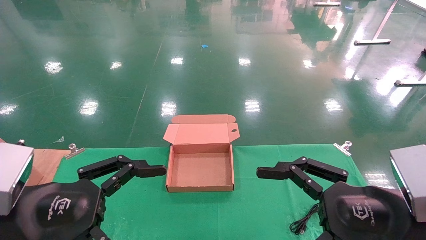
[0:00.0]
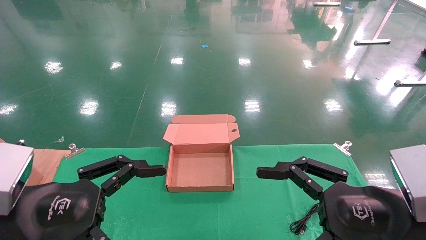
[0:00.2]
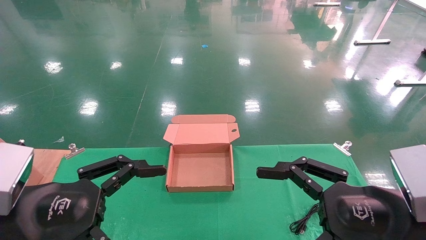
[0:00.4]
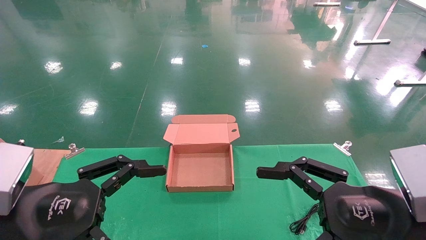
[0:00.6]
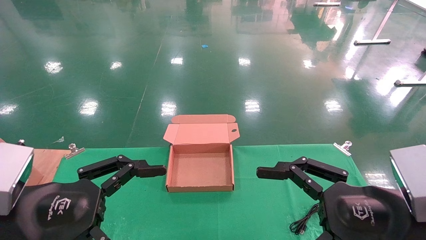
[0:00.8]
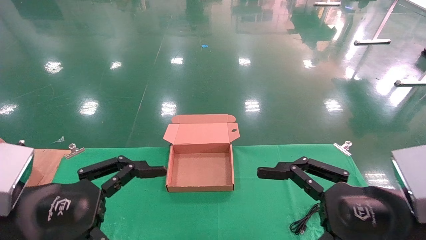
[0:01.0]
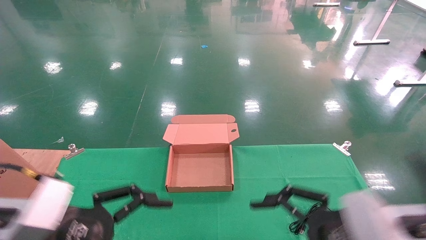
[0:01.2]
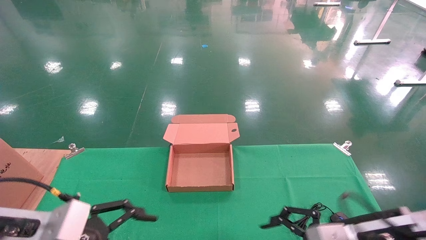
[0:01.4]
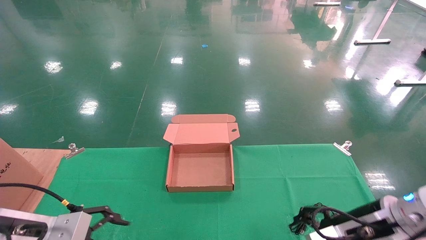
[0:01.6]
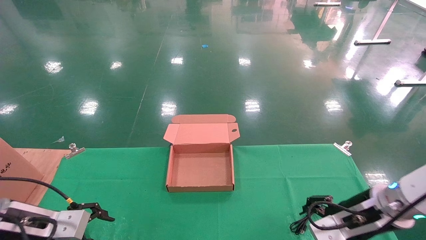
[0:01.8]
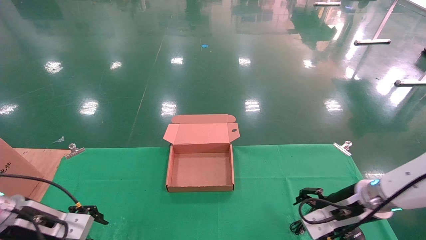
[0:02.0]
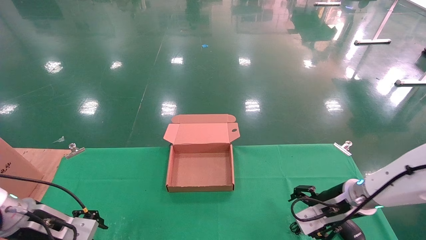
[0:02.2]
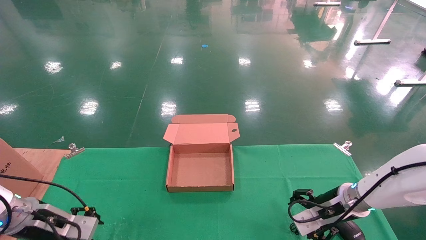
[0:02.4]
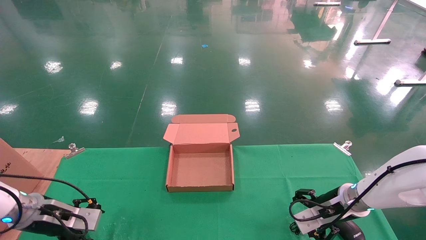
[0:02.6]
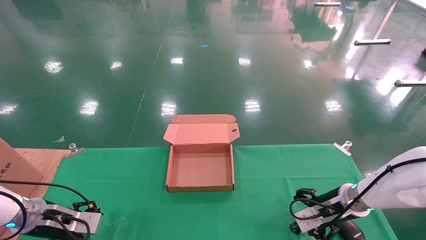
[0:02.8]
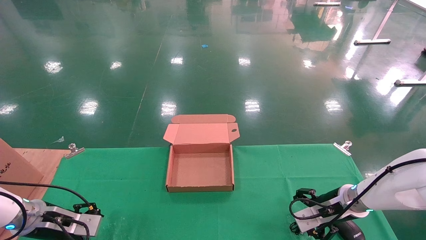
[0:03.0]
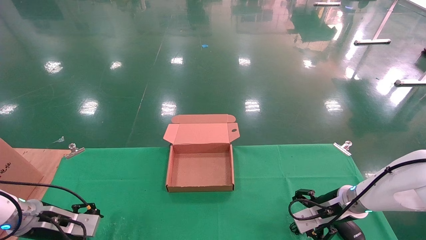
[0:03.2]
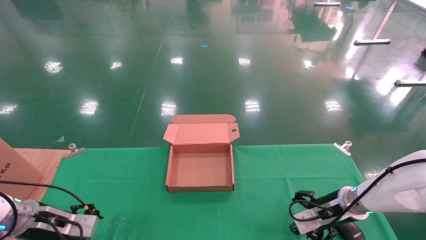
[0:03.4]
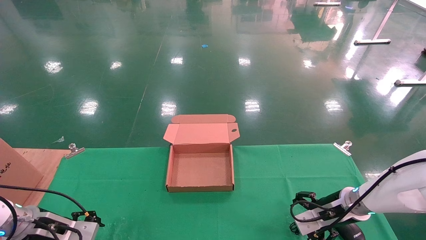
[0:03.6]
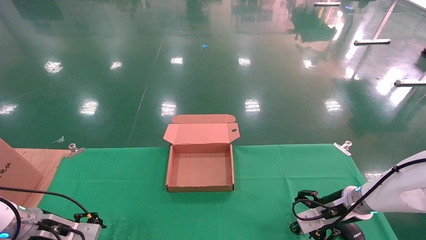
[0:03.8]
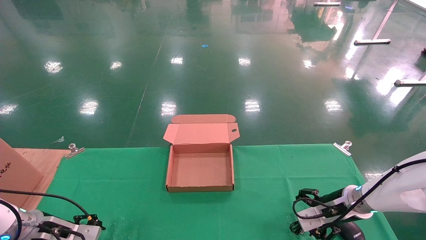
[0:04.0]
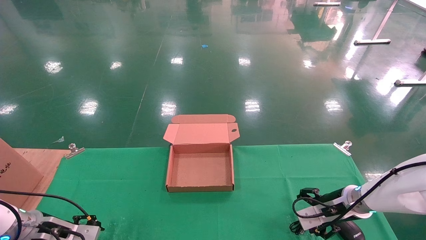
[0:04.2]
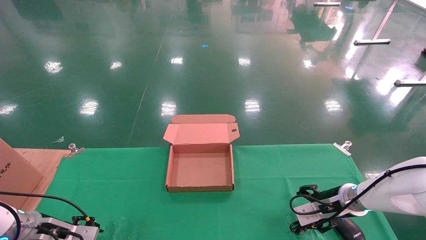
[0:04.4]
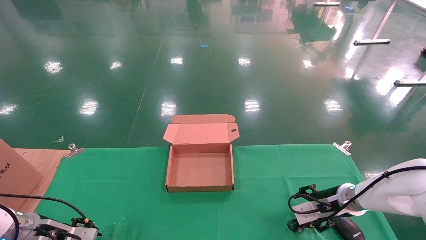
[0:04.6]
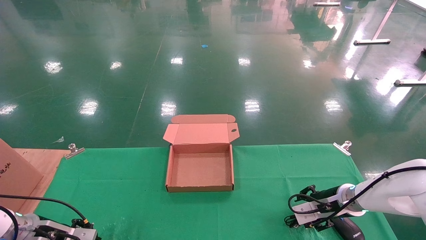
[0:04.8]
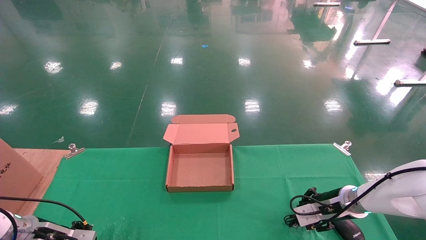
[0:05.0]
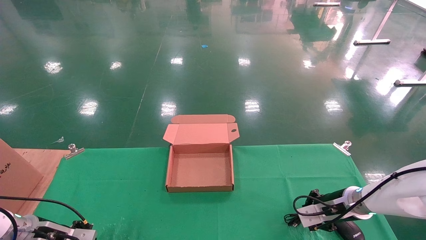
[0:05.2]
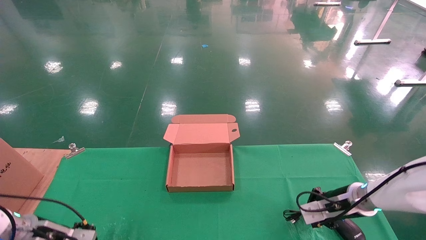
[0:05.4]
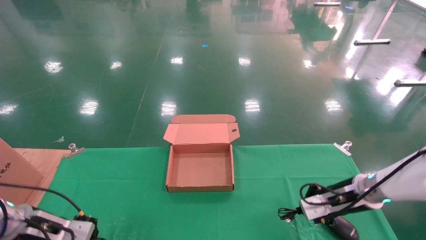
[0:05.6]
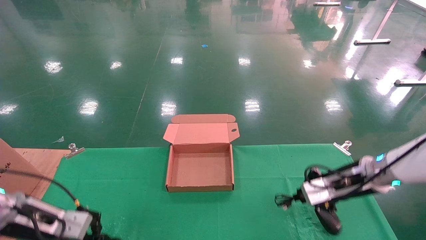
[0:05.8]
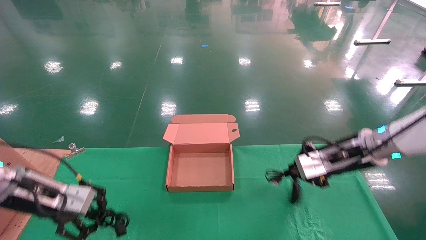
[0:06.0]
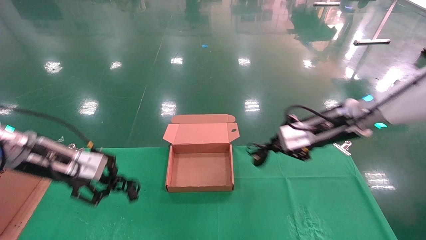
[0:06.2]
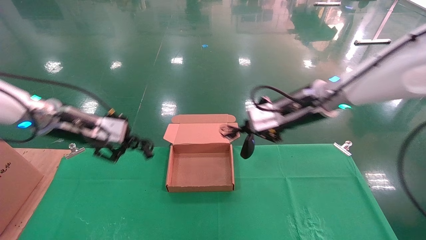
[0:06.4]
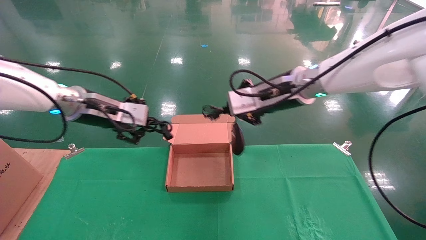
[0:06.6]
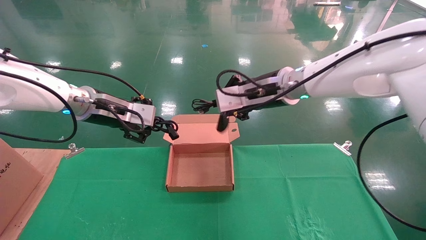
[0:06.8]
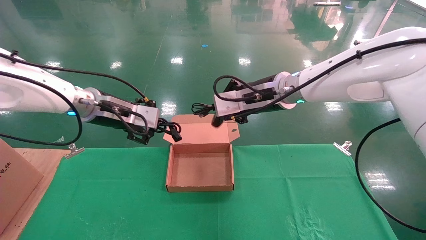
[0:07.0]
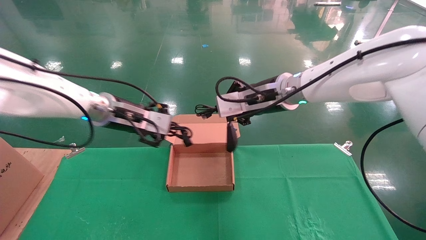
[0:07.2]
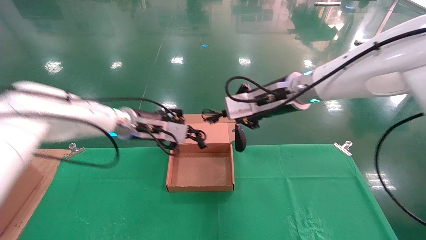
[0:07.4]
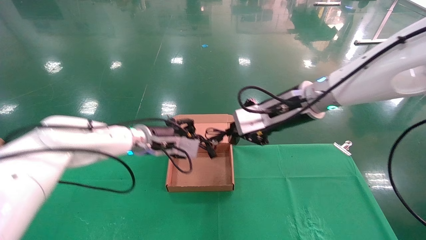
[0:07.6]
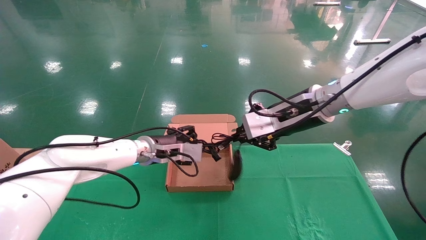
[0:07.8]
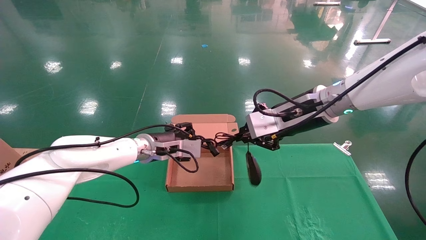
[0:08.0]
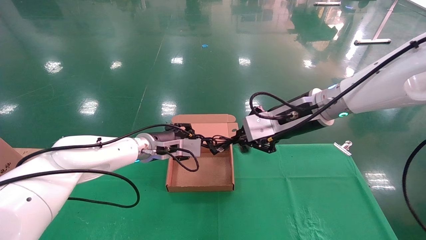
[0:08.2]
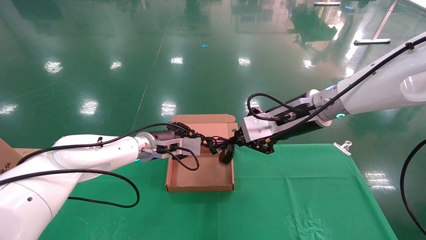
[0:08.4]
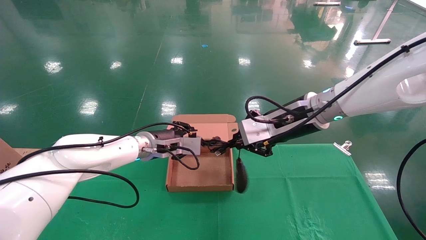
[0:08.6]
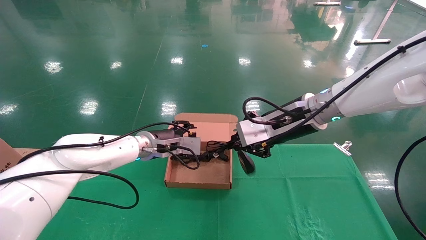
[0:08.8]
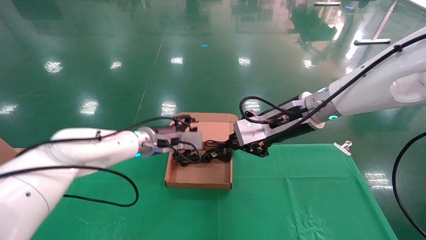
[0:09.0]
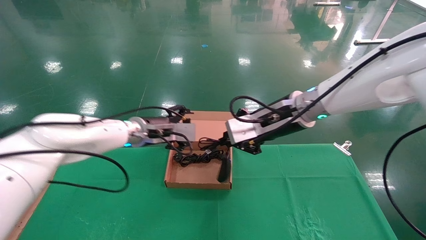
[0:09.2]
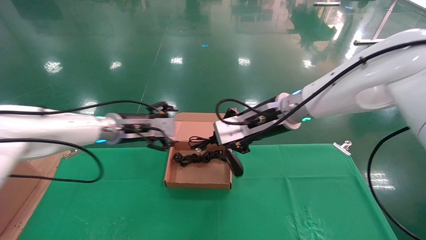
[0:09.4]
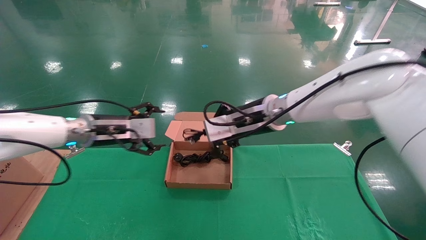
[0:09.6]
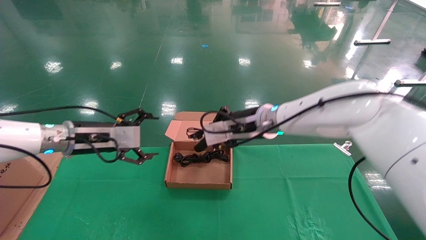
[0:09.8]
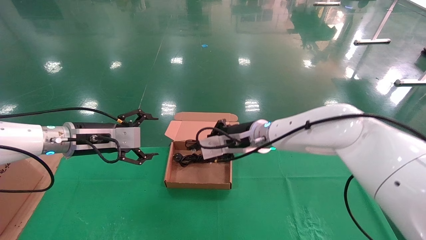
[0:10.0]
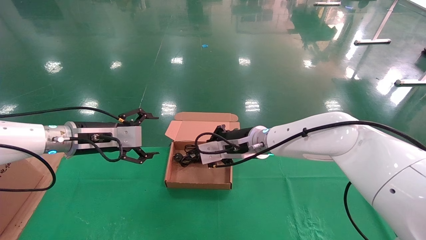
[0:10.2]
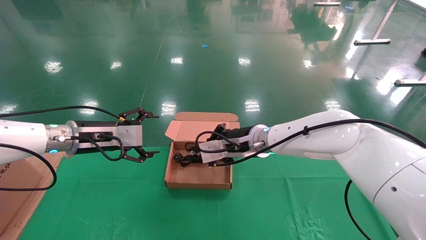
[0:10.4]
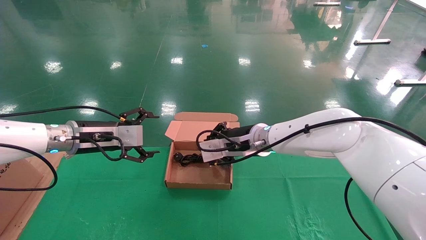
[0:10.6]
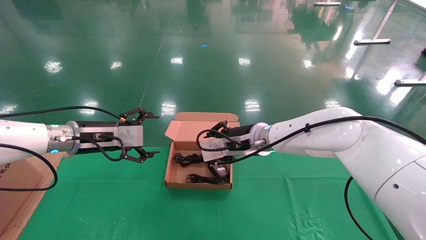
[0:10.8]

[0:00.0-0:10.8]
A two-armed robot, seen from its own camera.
Step, 0:01.6 to 0:06.0: Grab and lift both the mouse and power cord from the accessory packaging area at the same time.
0:00.0 to 0:01.6: The left gripper is displaced forward, downward and to the left by about 15 cm. Meanwhile the right gripper is displaced forward and downward by about 15 cm.
0:01.6 to 0:03.0: The left gripper goes about 15 cm forward, downward and to the left, while the right gripper shifts approximately 15 cm forward and downward.
0:03.0 to 0:04.6: The grippers stay close to where they were, moving slightly.
0:04.6 to 0:06.2: Both grippers move upward, approximately 20 cm. The left gripper closes, while the right gripper closes up.
0:06.2 to 0:07.8: The right gripper moves to the left, some 5 cm; the left gripper goes approximately 20 cm to the right and forward.
0:07.8 to 0:09.2: The left gripper opens.
0:09.2 to 0:10.8: The right gripper shifts about 10 cm downward, to the left and forward, while the left gripper is displaced to the left and backward by some 10 cm.

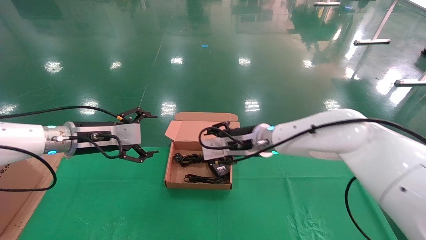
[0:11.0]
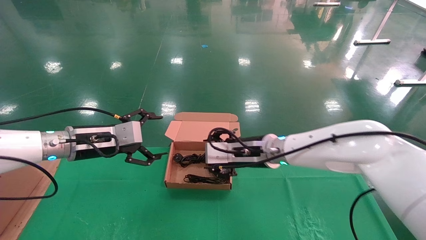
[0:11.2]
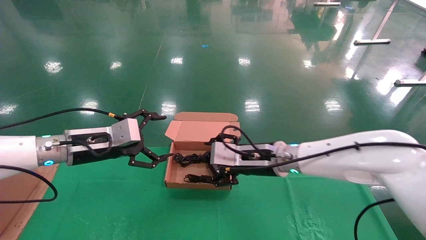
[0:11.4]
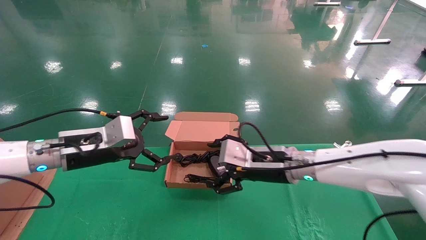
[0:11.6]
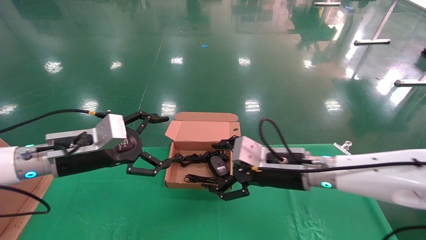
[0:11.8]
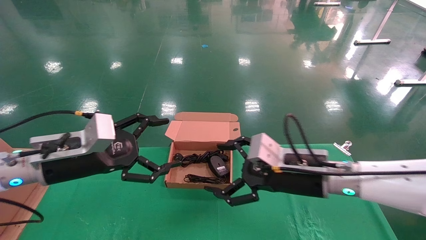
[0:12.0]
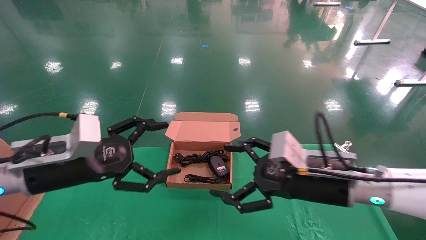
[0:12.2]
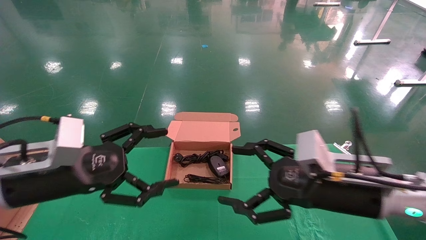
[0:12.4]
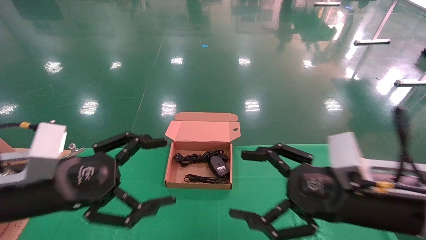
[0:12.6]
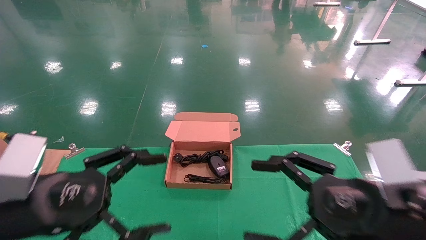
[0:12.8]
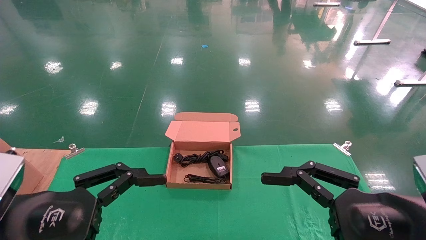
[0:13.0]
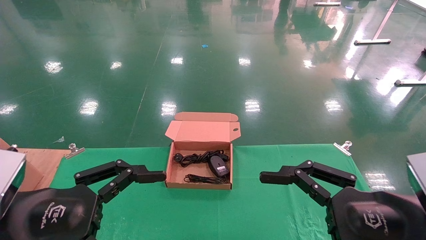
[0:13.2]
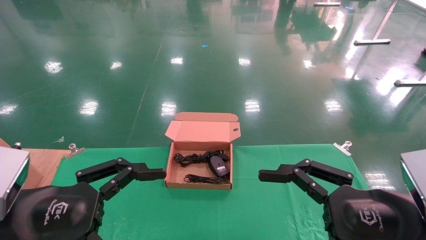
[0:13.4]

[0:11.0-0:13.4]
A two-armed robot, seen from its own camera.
0:11.0 to 0:12.2: The left gripper travels backward by about 10 cm, while the right gripper heads backward and to the right, covering roughly 20 cm, and opens.
0:12.2 to 0:13.4: The right gripper moves backward and to the right, roughly 15 cm. The left gripper travels backward by about 10 cm.

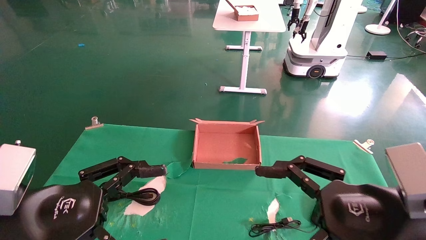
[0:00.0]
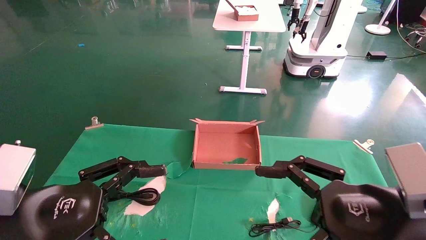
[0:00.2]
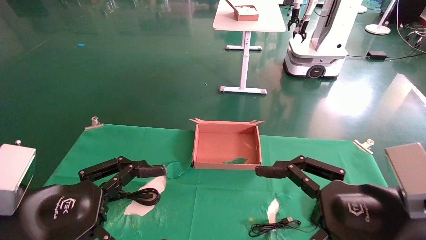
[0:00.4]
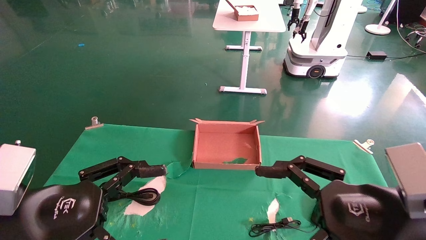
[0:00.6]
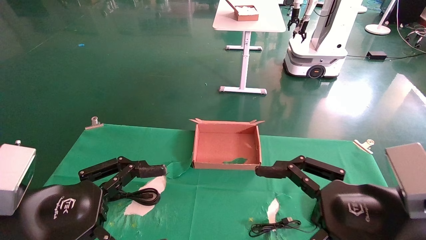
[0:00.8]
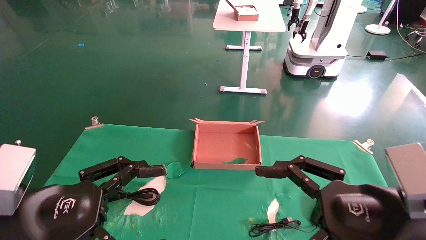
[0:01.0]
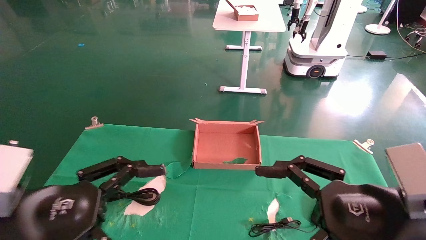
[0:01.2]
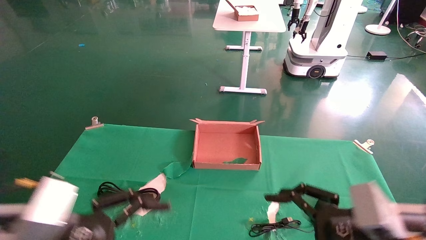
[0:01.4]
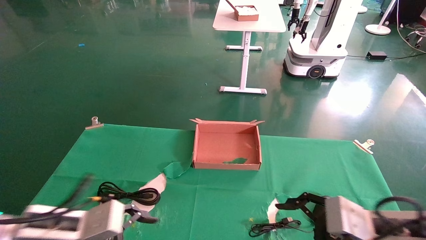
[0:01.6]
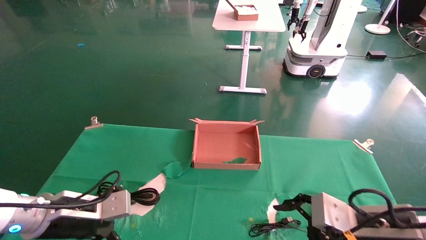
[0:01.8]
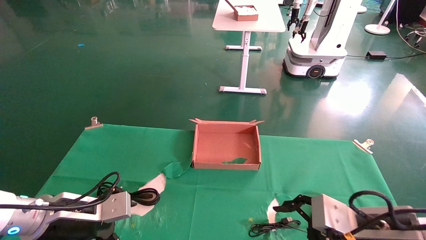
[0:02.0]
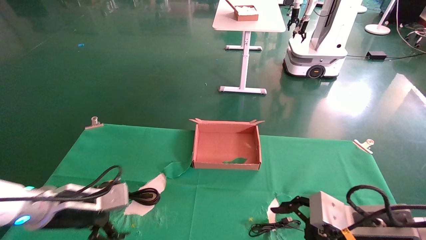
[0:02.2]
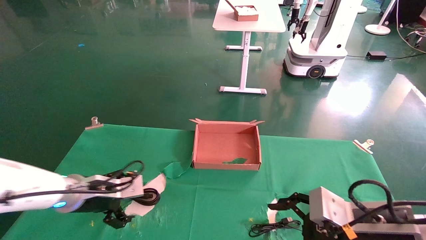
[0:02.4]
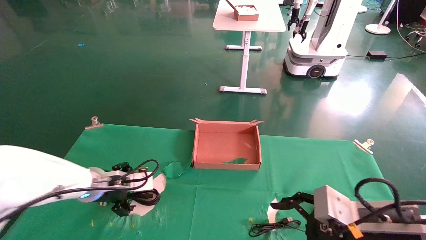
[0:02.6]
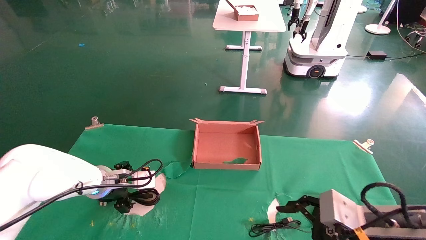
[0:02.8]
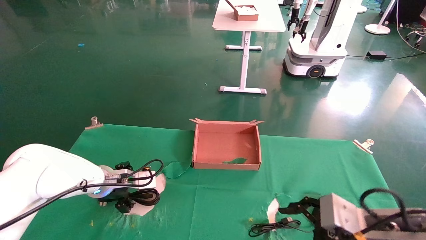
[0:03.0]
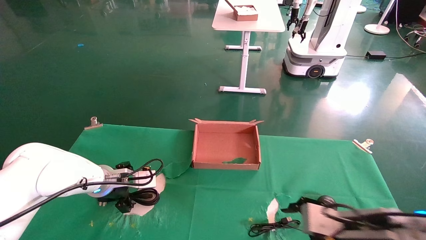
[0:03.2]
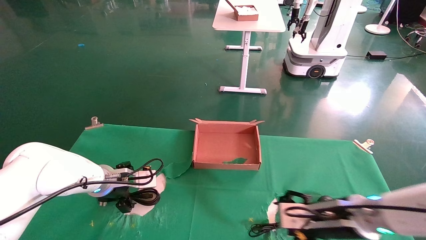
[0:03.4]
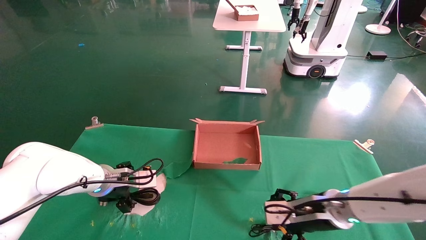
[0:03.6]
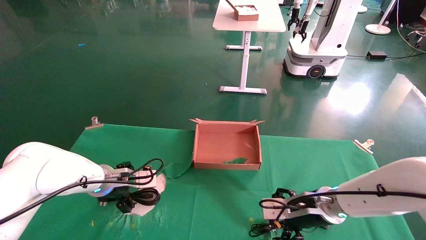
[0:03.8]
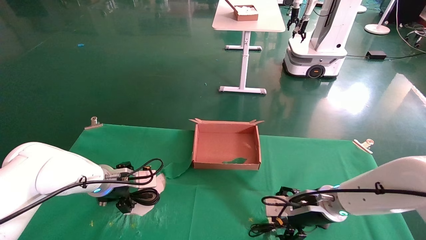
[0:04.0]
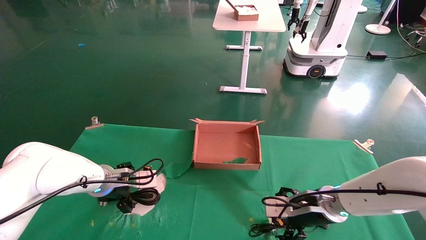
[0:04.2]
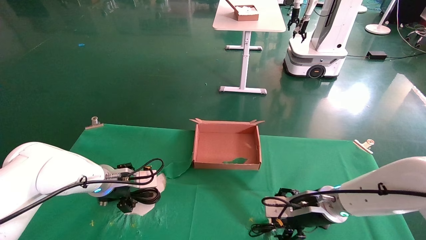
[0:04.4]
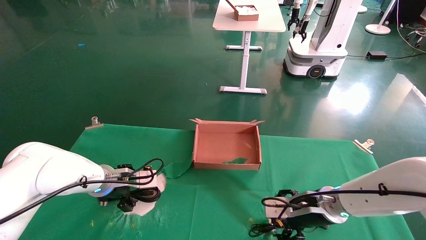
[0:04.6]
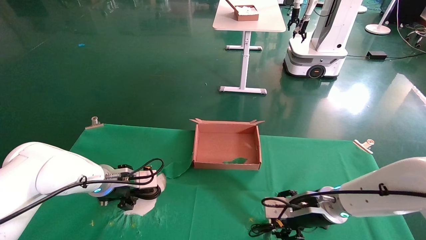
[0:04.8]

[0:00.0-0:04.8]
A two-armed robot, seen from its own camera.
0:00.0 to 0:01.6: The left gripper goes roughly 10 cm forward and downward, while the right gripper travels downward by some 5 cm.
0:01.6 to 0:03.2: The right gripper moves forward, approximately 5 cm. The left gripper goes some 15 cm forward.
0:03.2 to 0:04.8: The right gripper travels forward by roughly 10 cm.
